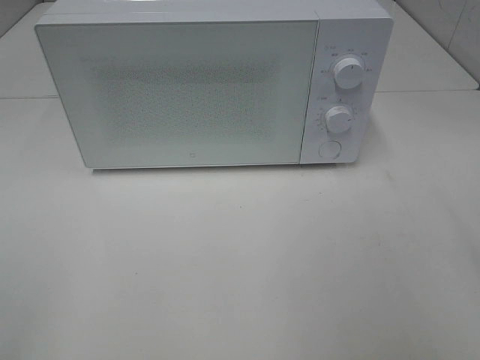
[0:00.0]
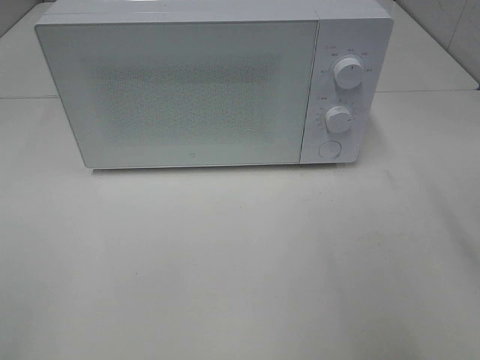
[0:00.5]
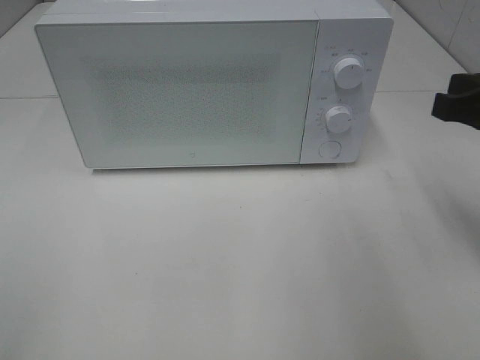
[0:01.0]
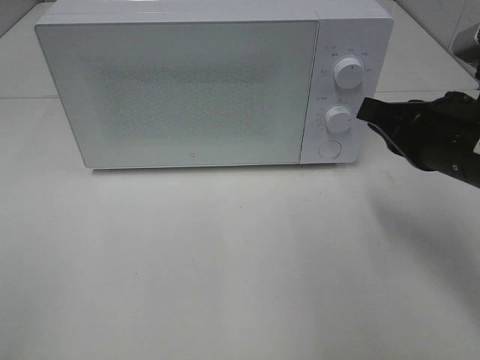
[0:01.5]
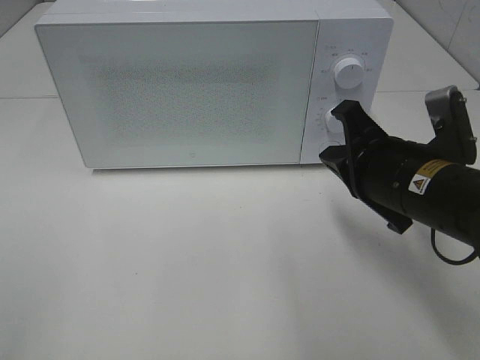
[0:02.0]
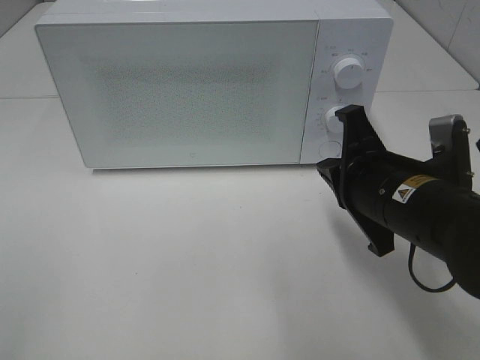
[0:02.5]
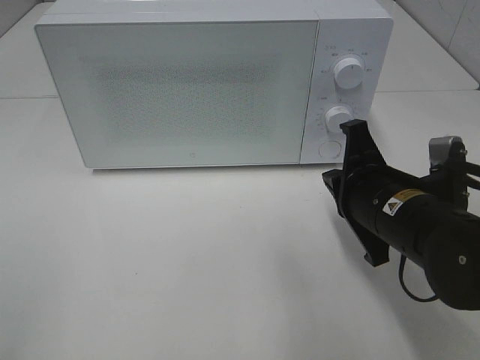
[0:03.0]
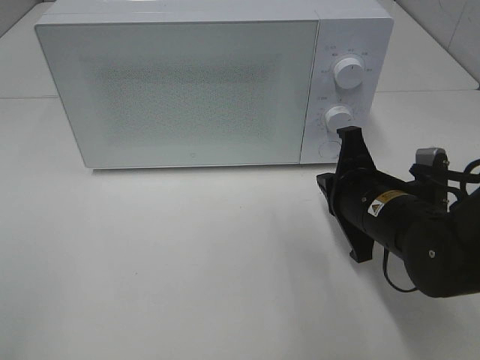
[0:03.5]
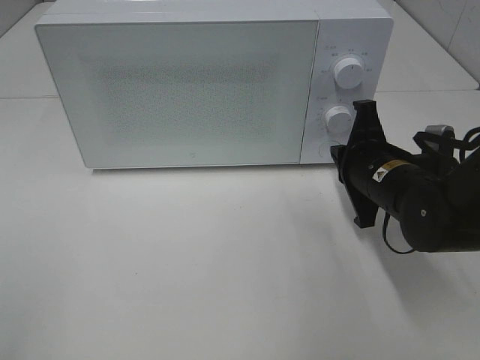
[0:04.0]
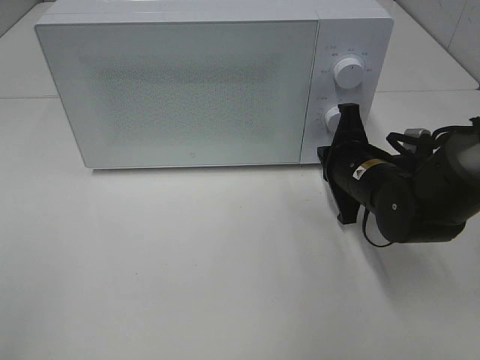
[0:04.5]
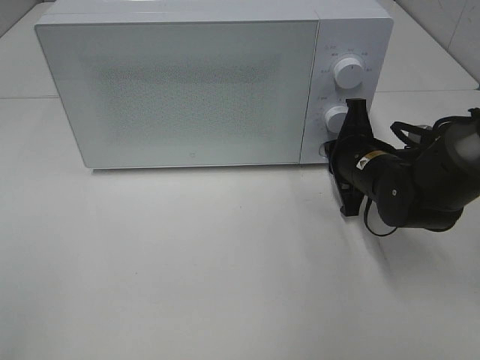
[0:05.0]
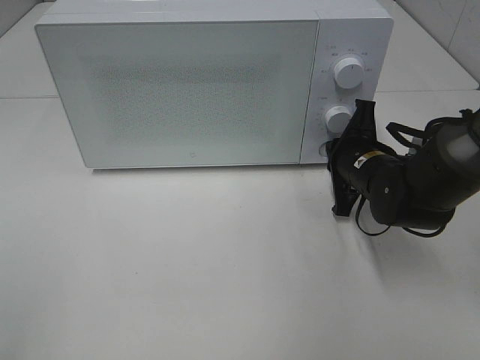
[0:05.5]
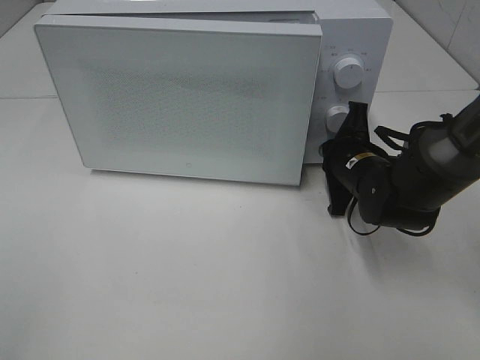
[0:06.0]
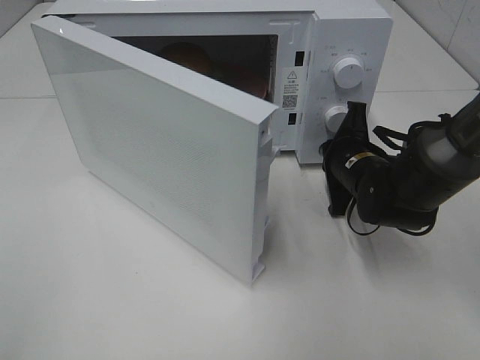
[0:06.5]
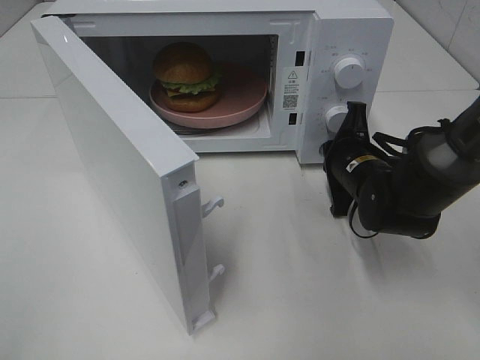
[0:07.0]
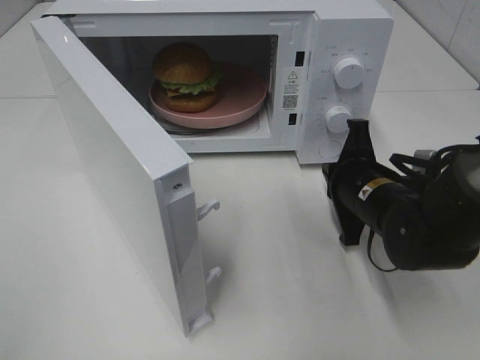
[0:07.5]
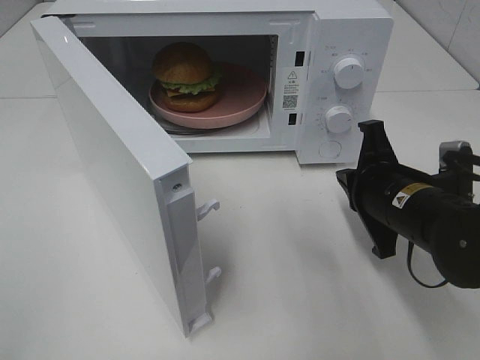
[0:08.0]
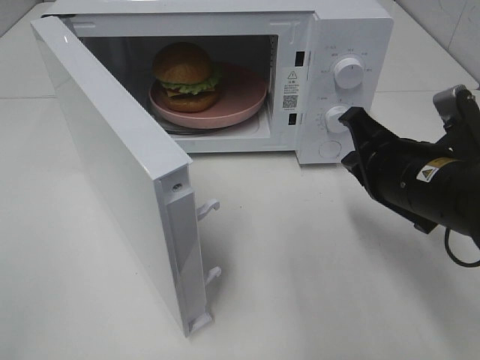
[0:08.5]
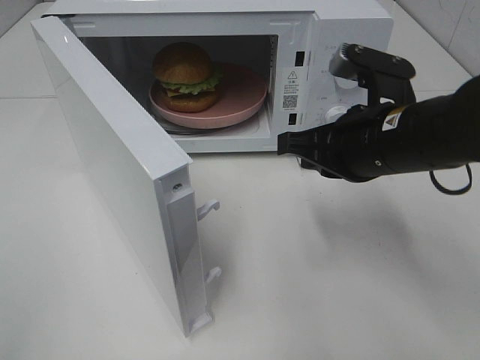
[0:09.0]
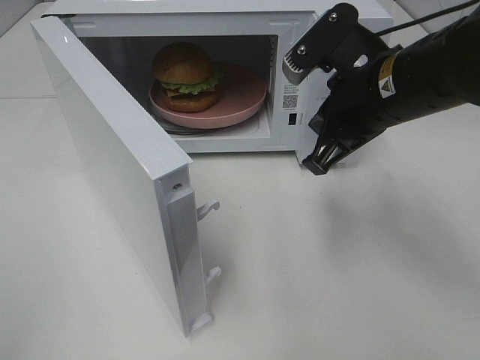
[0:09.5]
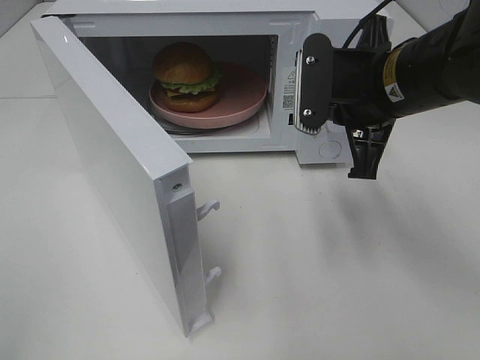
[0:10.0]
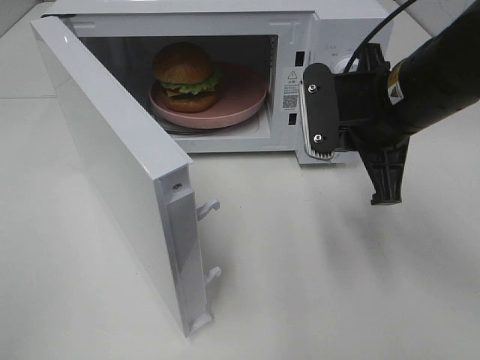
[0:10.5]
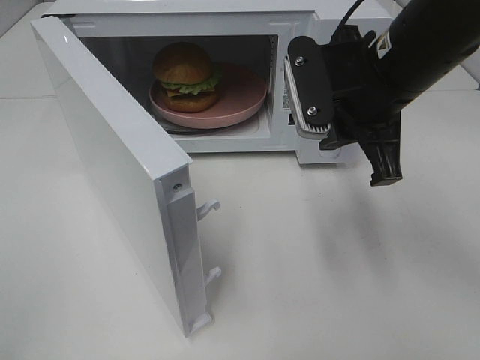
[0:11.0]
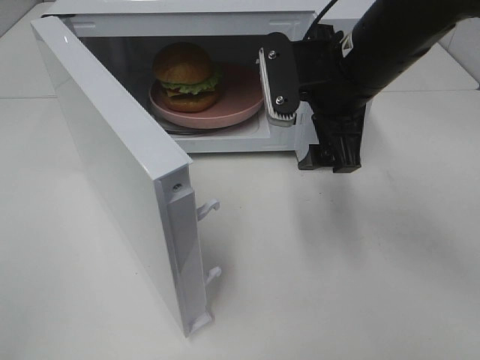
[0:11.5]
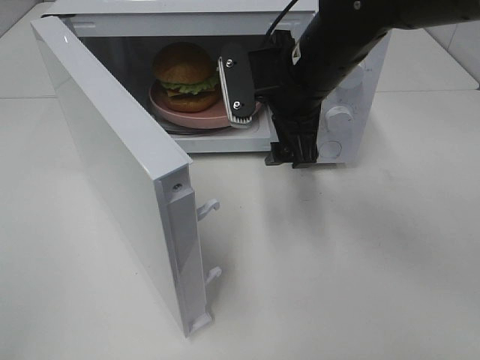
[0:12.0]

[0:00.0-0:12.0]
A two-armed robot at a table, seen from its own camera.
Task of the whole recording: Heat the burger.
Step, 0:00.0 to 0:07.0: Right hand: press the switch.
0:00.0 to 0:02.0: The right gripper moves forward, downward and to the left, about 25 cm, and closes.
0:02.0 to 0:04.0: The right gripper moves forward and downward, about 10 cm.
0:04.0 to 0:06.0: The right gripper is displaced forward by roughly 5 cm.
0:06.0 to 0:08.0: The right gripper is displaced backward by approximately 10 cm.
0:08.0 to 0:10.0: The right gripper heads upward, covering about 10 cm.
0:10.0 to 0:12.0: The right gripper is displaced to the left and forward by roughly 10 cm, and opens.

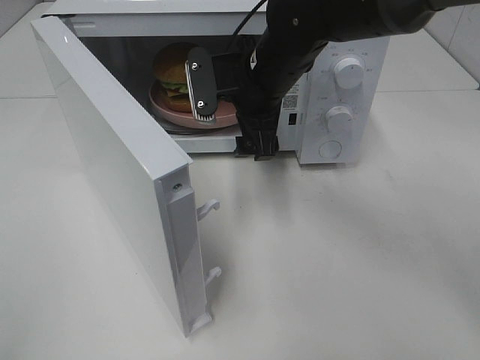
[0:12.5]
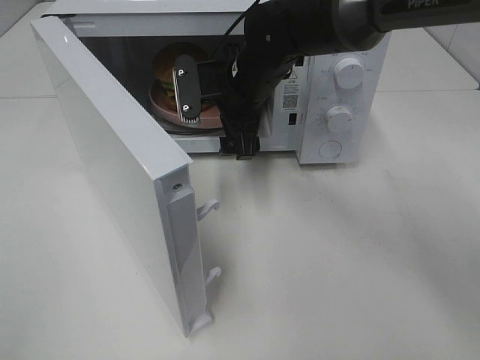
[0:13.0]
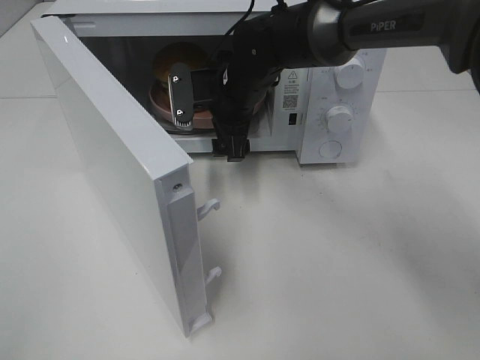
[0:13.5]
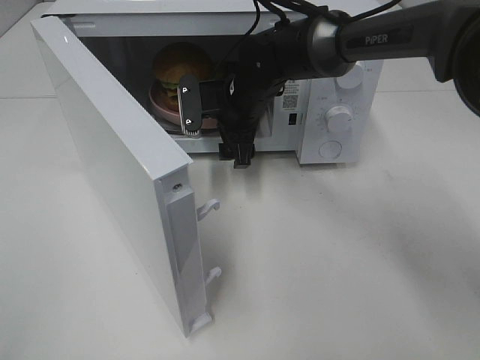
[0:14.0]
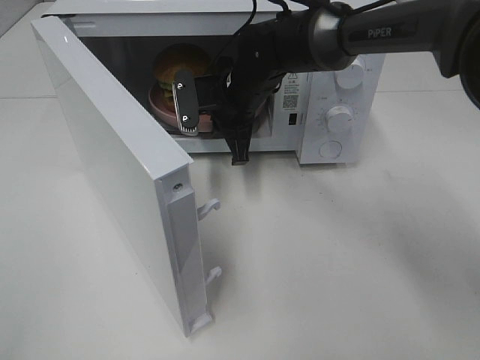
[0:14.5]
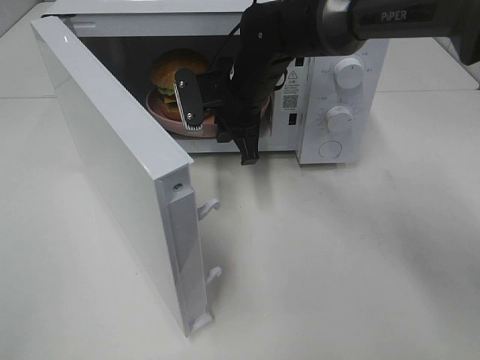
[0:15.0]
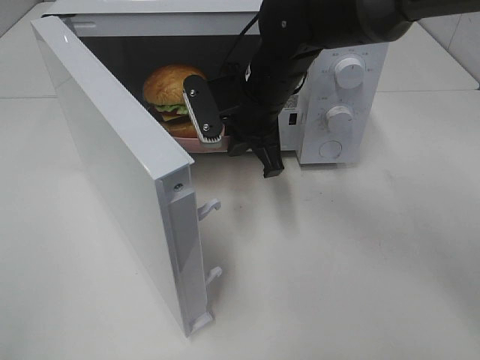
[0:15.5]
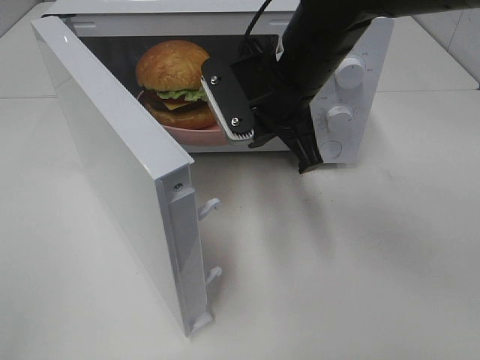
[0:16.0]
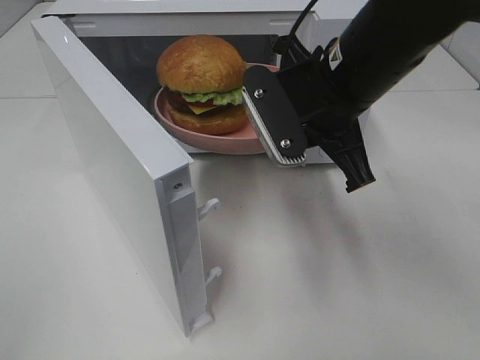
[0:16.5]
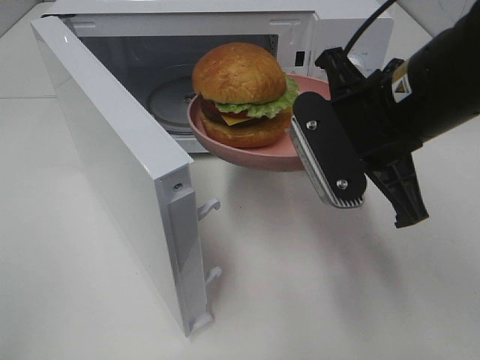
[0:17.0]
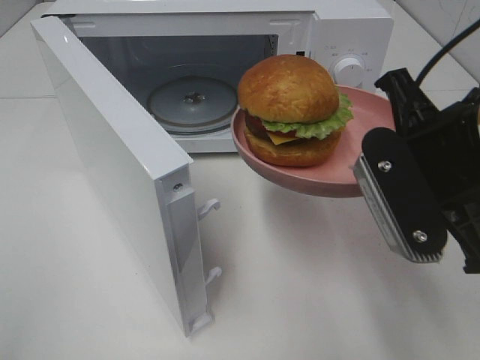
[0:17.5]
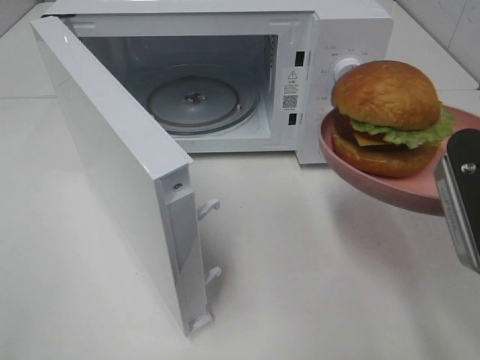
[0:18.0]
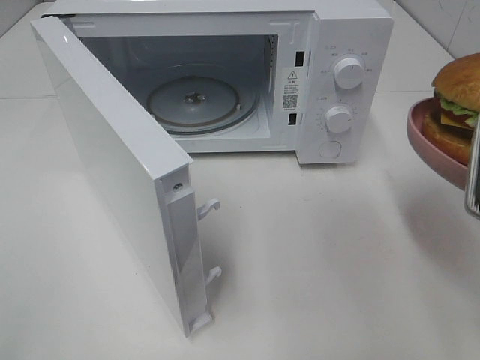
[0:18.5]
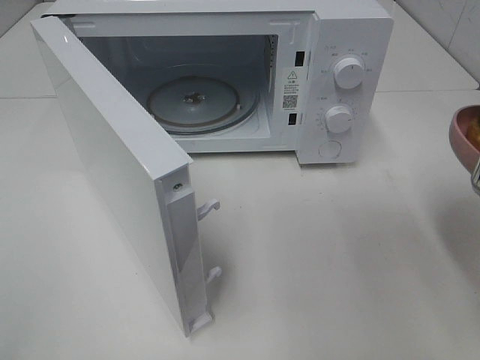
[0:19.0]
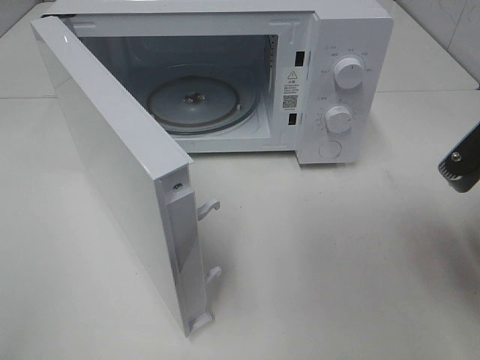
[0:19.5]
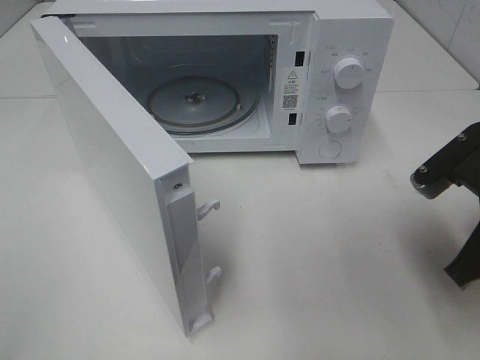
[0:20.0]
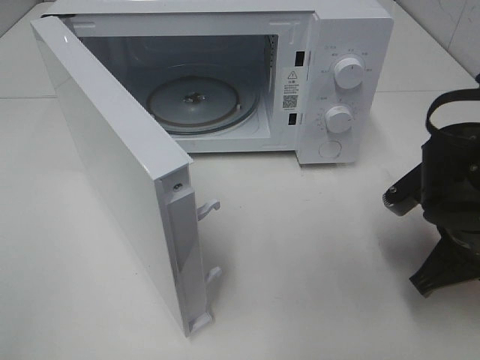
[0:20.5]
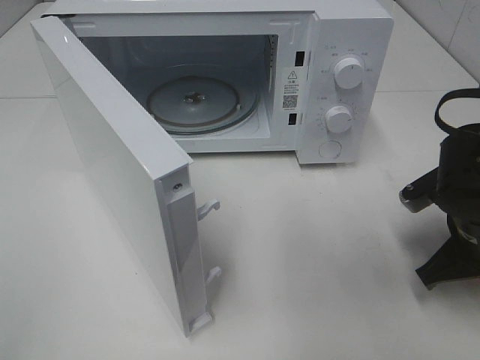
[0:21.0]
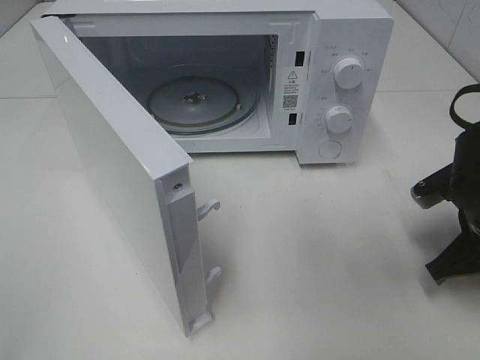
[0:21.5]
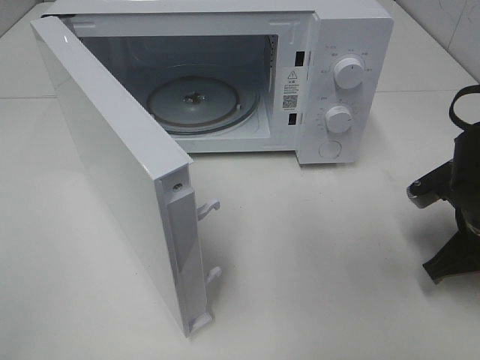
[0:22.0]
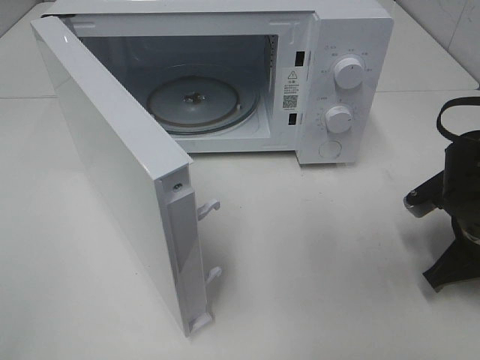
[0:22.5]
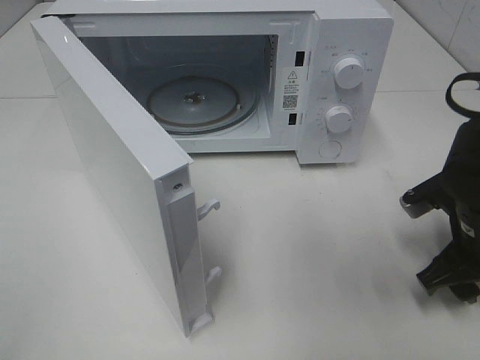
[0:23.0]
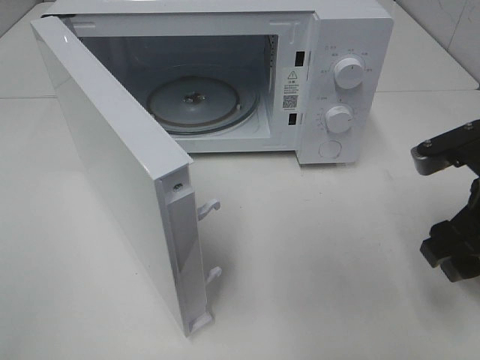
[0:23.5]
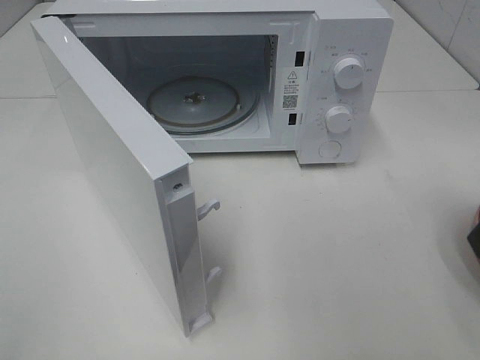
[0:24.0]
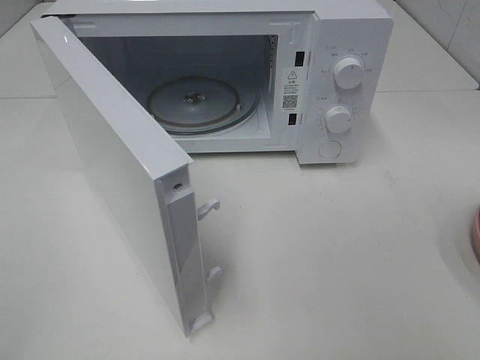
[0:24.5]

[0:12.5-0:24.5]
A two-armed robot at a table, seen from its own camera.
Task of the whole recording: Heat the burger.
Step, 0:12.5 to 0:14.5: Right hand: grab the plate with the hamburger.
Step, 0:15.0 to 0:22.5: Right hand: place the plate on the table.
0:12.5 to 0:14.5: The right gripper travels downward and forward by roughly 10 cm, and closes its fingers.
0:14.5 to 0:16.5: The right gripper travels backward, upward and to the right by roughly 20 cm.
0:16.5 to 0:18.5: The right gripper moves to the right and backward, roughly 20 cm.
0:18.5 to 0:20.5: The right gripper is displaced downward and forward by approximately 15 cm.
0:20.5 to 0:22.5: The right gripper ends up some 5 cm from where it was.
0:22.5 to 0:24.5: The right gripper goes about 25 cm upward and backward, and opens its fingers.

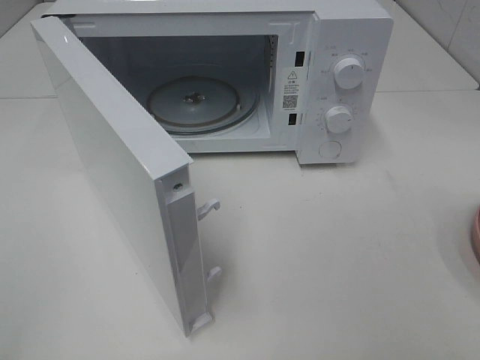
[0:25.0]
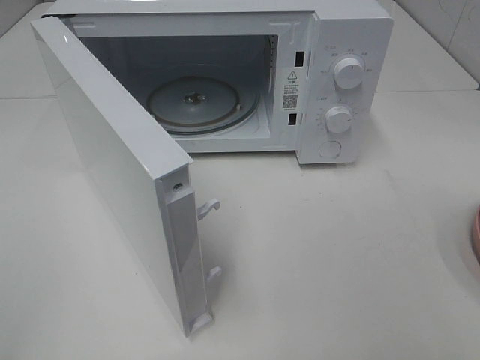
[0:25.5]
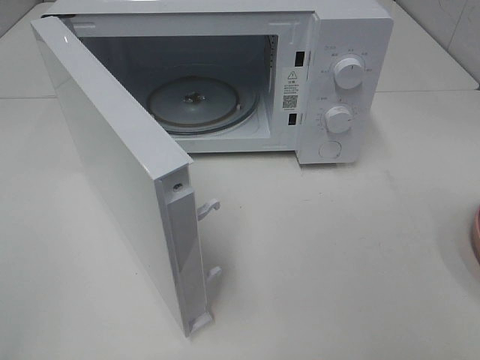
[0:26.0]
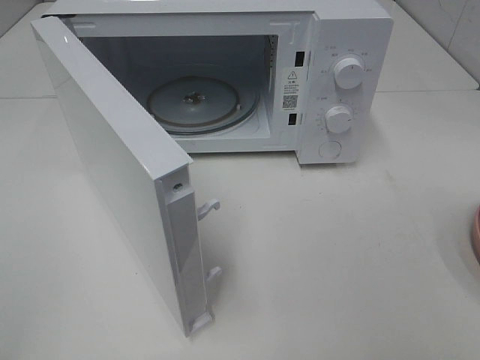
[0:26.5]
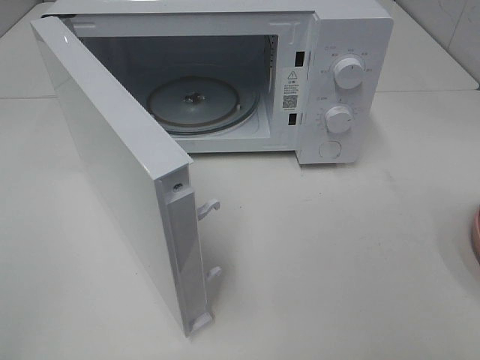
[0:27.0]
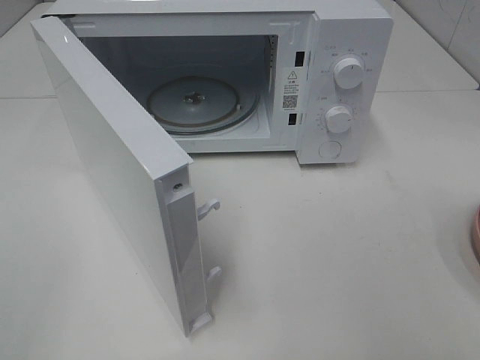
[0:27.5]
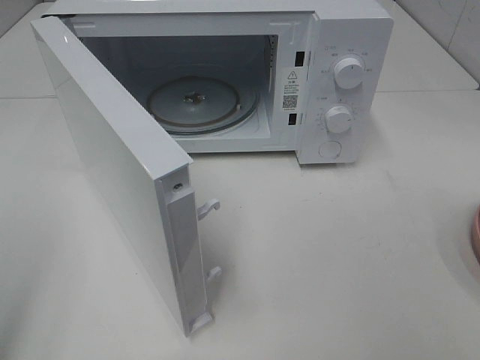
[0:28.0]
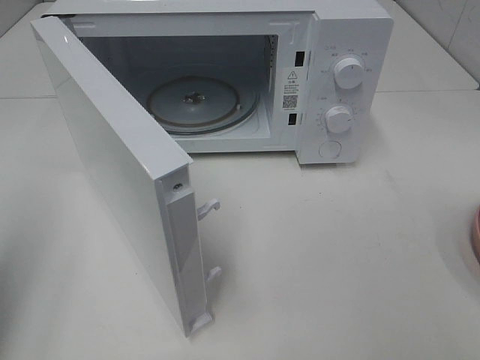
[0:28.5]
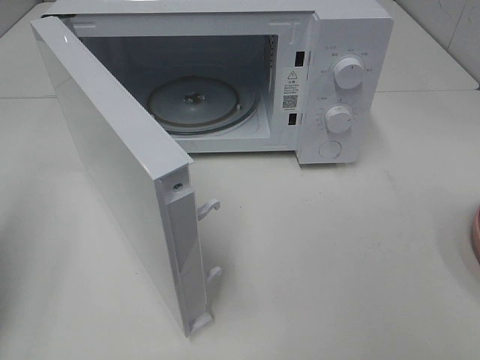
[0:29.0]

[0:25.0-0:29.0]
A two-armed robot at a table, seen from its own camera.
Task of the whole recording: Heat the burger.
0:25.0 to 0:27.0: Both grippers stay about where they are.
0:27.0 to 0:29.0: The left gripper shifts approximately 15 cm forward, and closes its fingers.
